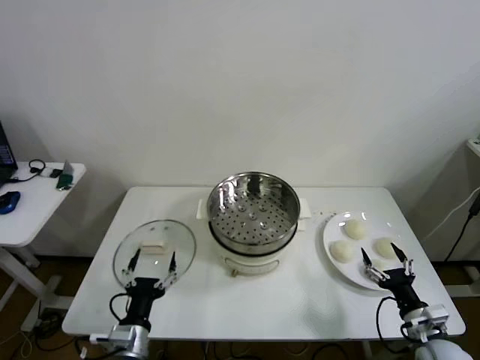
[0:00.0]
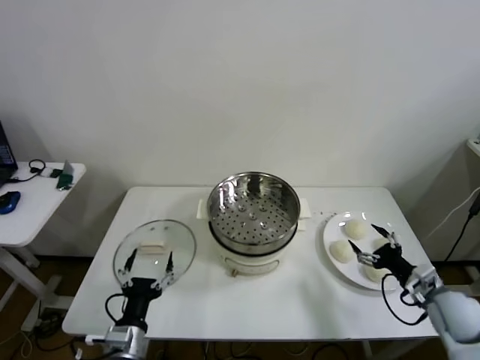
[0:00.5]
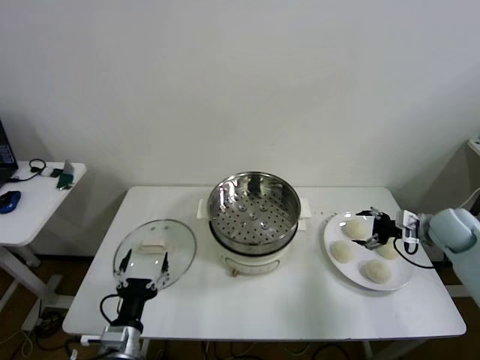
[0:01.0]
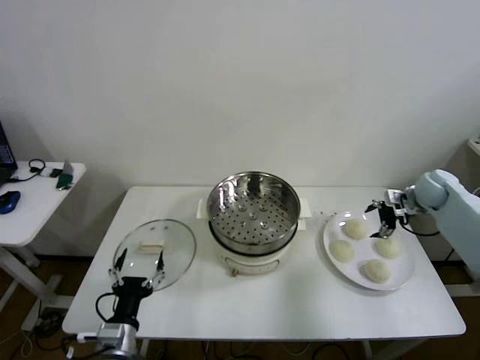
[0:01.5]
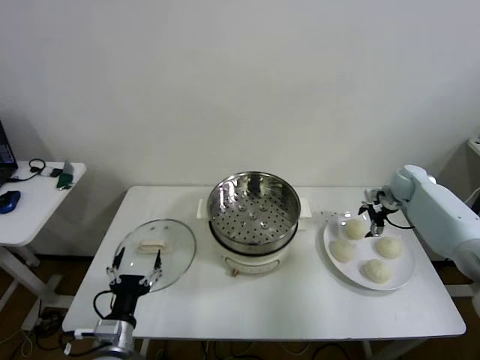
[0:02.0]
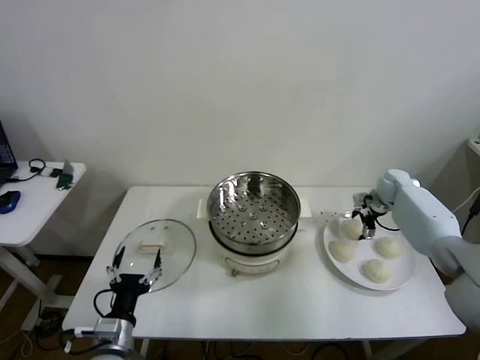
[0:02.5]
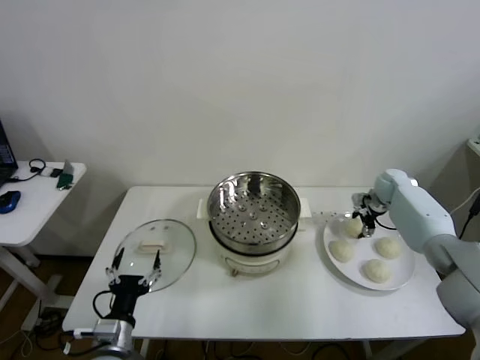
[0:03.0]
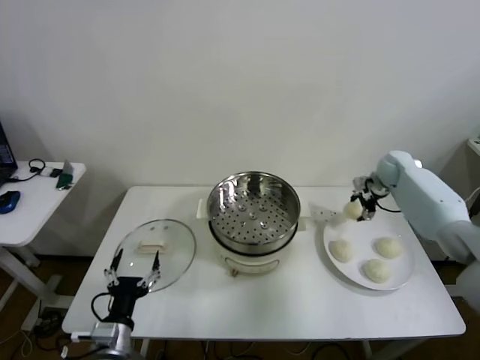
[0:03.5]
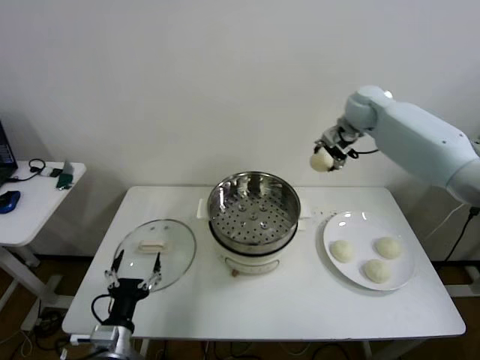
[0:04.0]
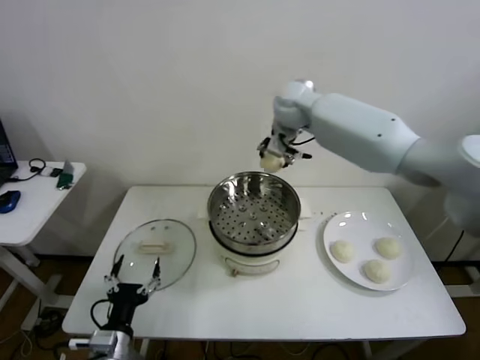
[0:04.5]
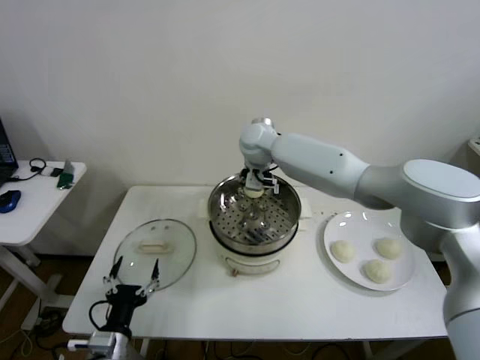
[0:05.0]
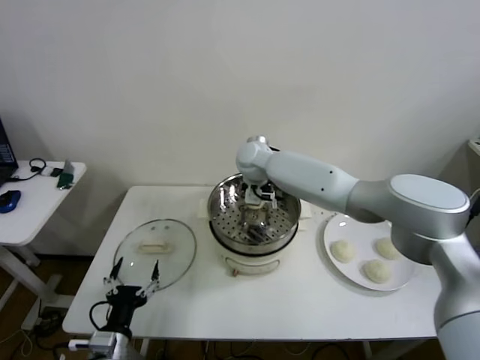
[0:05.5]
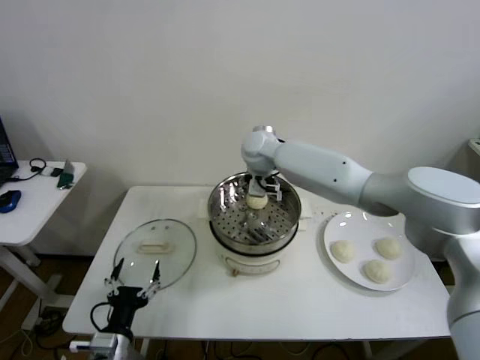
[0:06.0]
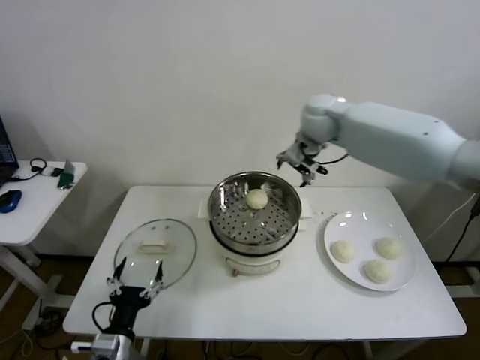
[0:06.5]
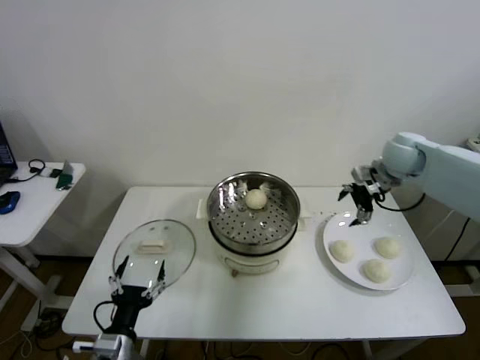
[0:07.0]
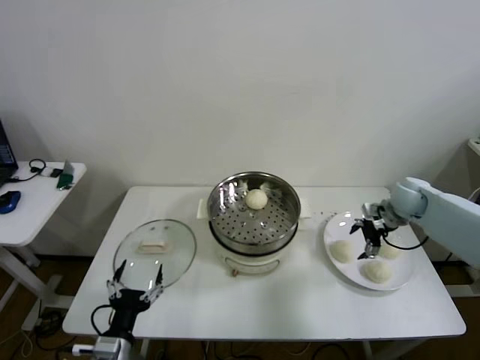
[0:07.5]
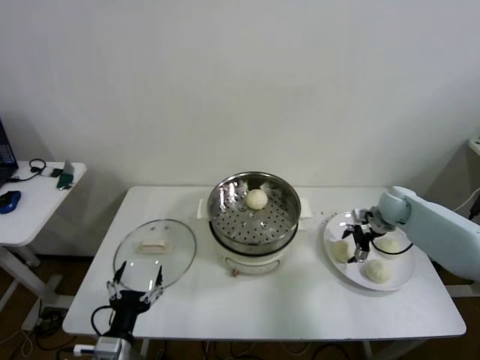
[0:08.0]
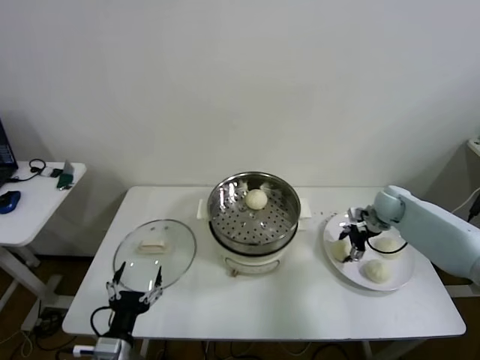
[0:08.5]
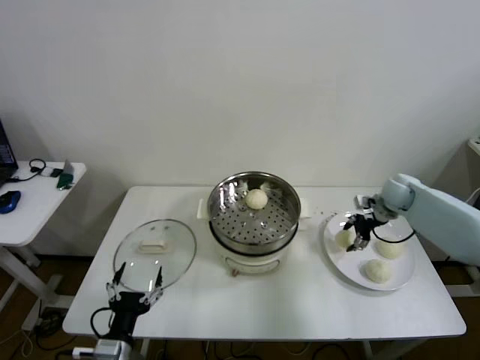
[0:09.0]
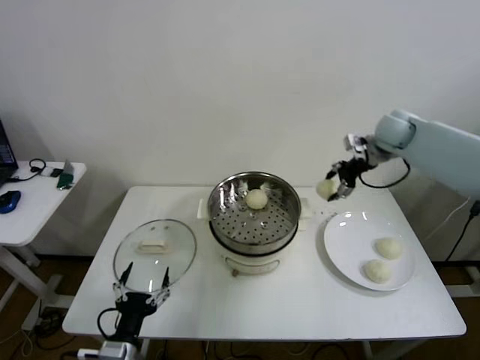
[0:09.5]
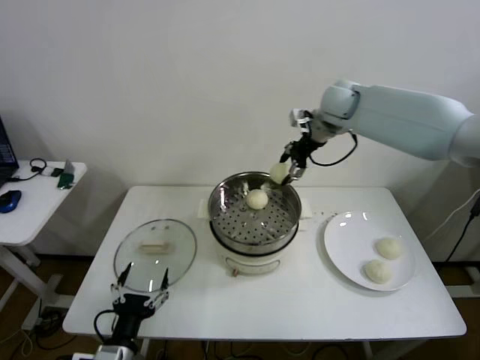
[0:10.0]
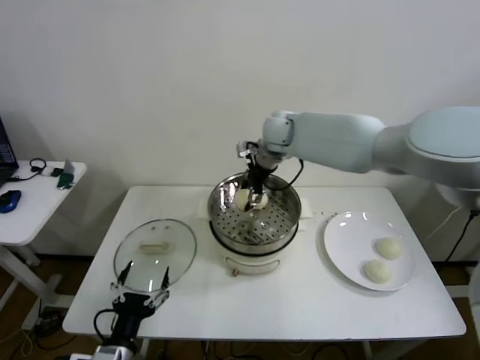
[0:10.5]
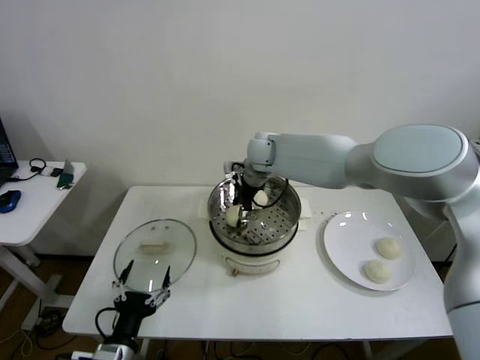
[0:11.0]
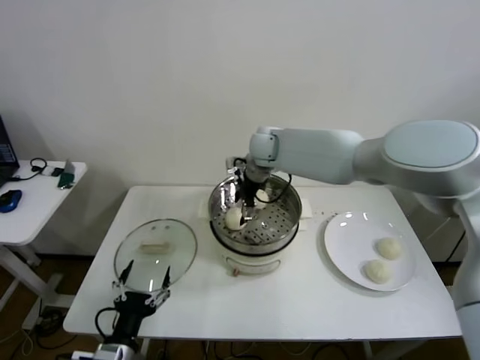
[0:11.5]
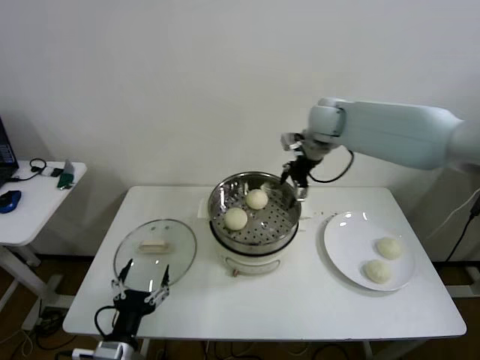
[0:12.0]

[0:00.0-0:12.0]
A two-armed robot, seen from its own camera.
Step, 0:00.0 to 0:03.0: Grasp the baozi in the plate with right gripper.
Step, 0:03.5 to 0:05.5: Place the baozi on the steamer with right gripper.
Step, 0:06.0 to 0:08.5: Grasp the baozi in the plate with right gripper.
Step, 0:09.0 to 0:11.0: Place the baozi on the steamer with right gripper.
0:02.0 to 0:04.0: The right gripper shifts approximately 30 cm upward and to the left, and closes up.
0:04.0 to 0:06.0: The right gripper heads to the left and downward, covering roughly 20 cm, and opens its fingers.
0:06.0 to 0:08.0: The right gripper heads to the right and downward, covering some 40 cm.
0:08.0 to 0:10.0: The right gripper moves upward and to the left, some 35 cm, and closes up.
0:10.0 to 0:12.0: The right gripper moves roughly 15 cm to the left and comes back, and opens its fingers.

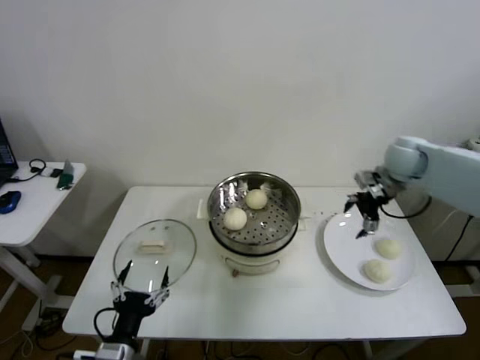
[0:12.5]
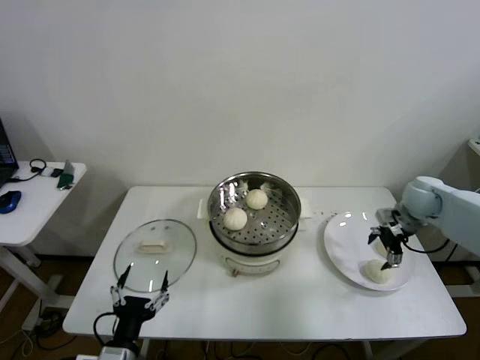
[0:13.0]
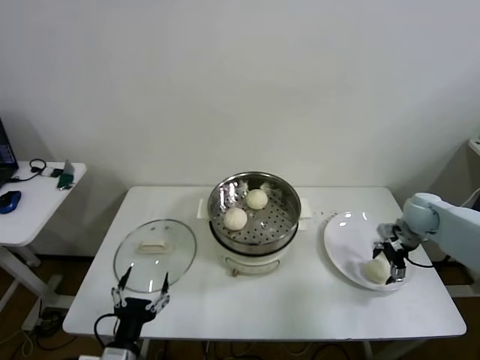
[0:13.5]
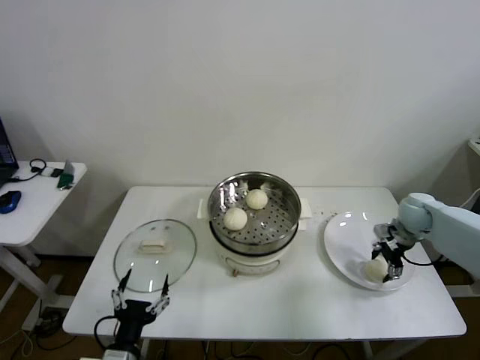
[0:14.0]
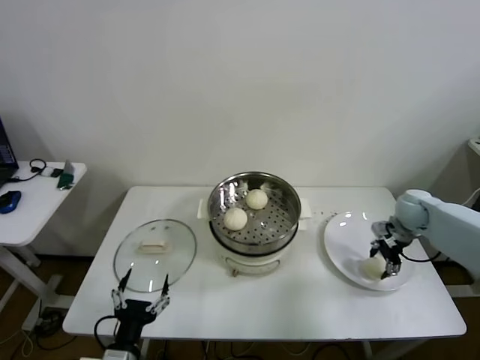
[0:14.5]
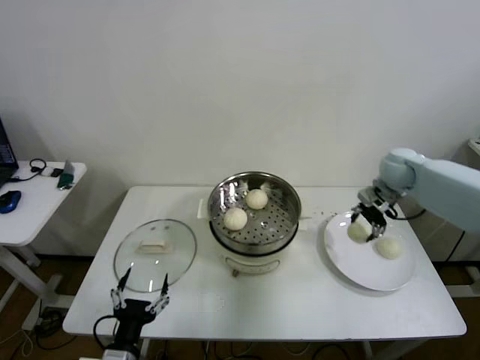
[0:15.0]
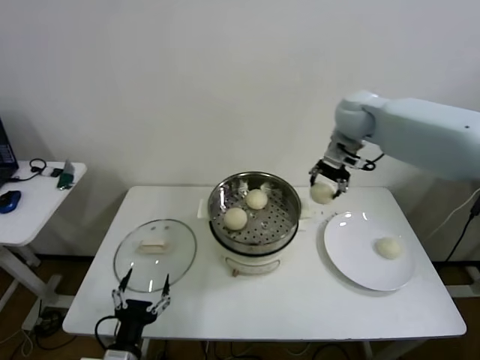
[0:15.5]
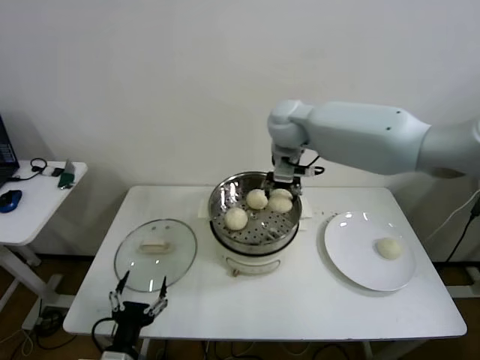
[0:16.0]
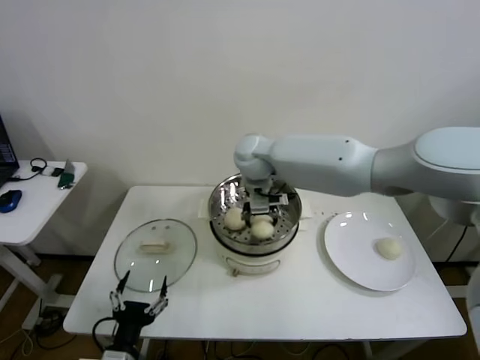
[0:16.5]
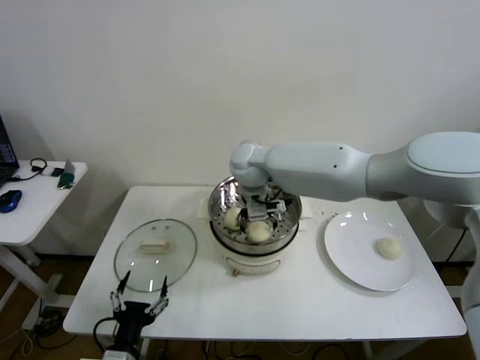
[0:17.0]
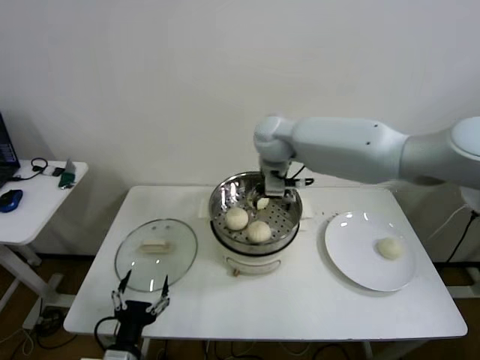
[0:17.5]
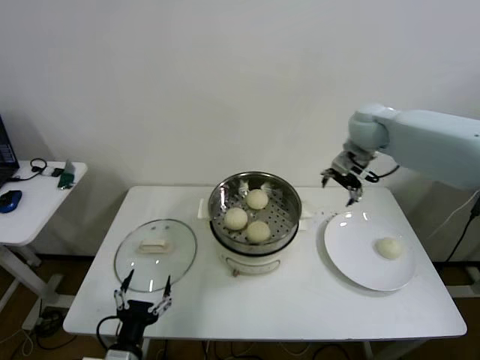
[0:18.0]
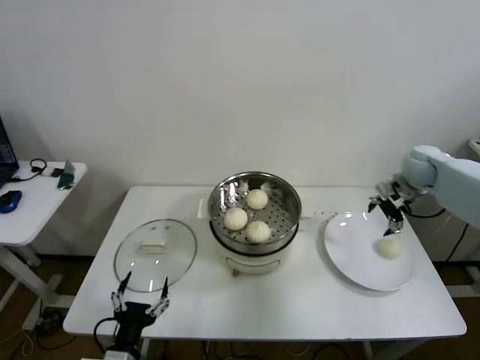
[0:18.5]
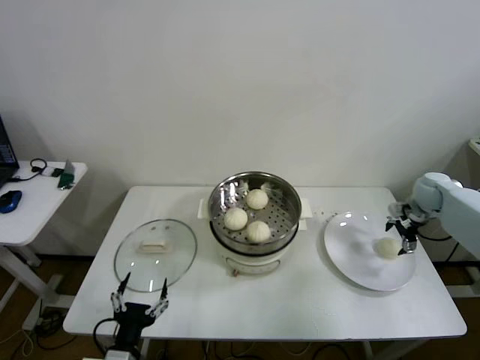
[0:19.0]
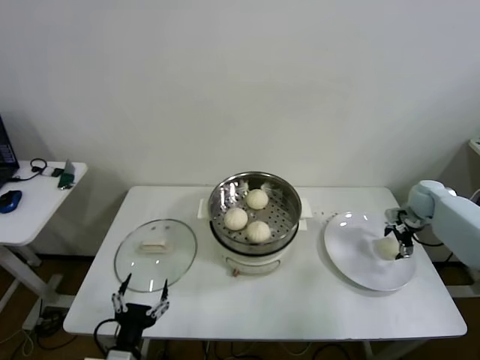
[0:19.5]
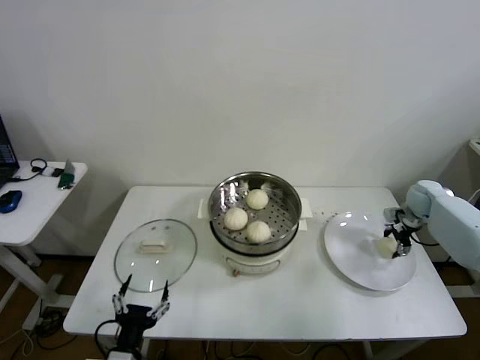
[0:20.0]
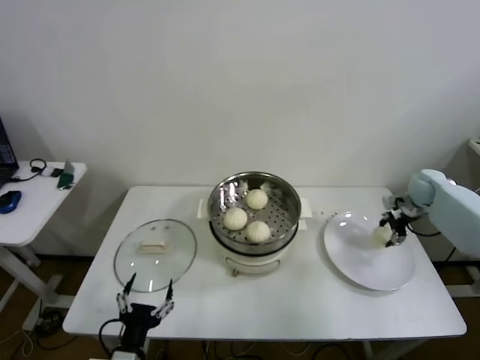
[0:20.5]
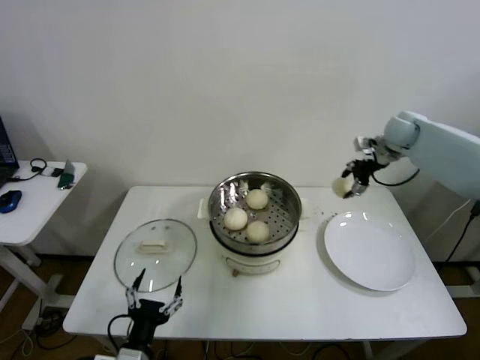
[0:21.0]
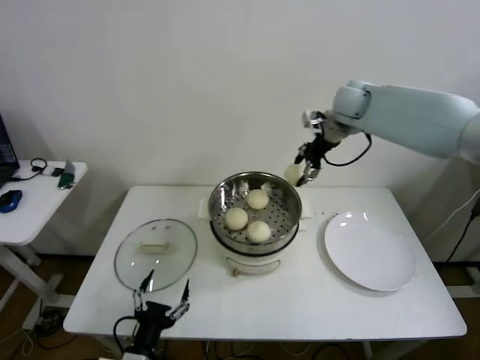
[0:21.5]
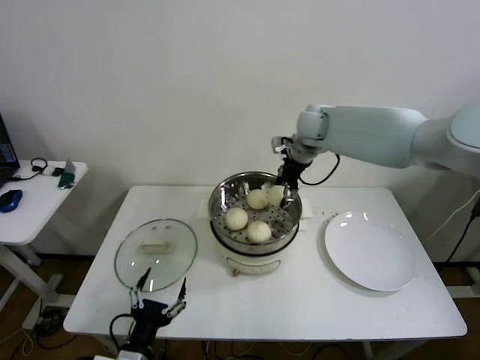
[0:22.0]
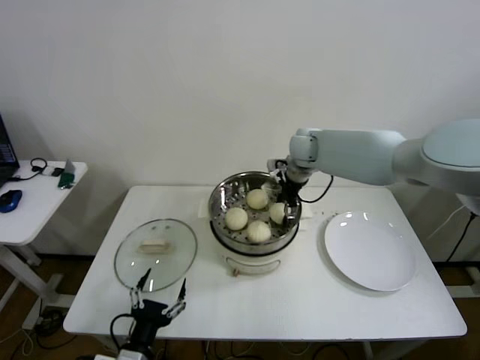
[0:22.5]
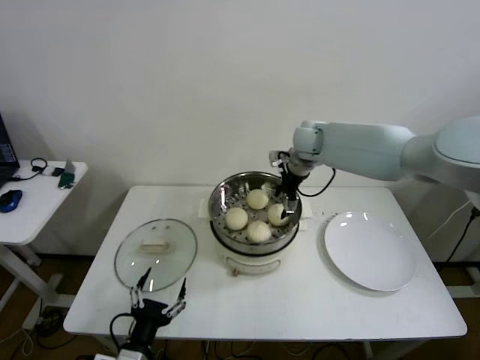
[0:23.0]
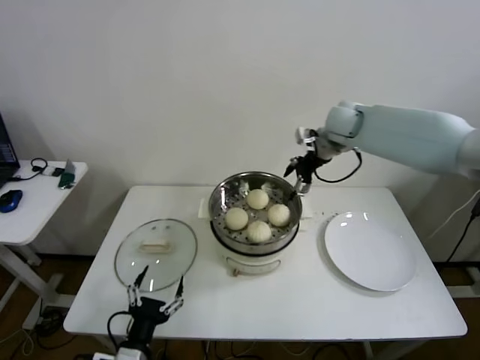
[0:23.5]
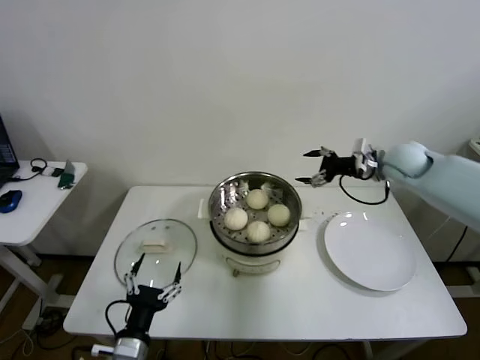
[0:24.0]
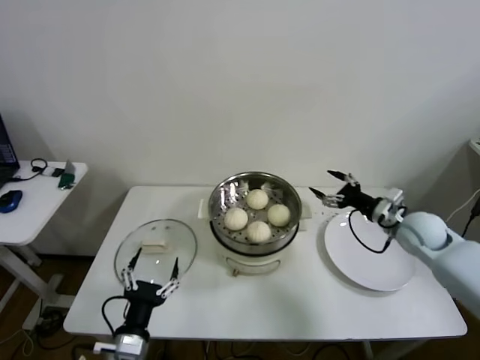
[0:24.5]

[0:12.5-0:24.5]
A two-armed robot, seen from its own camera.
Step, 0:12.5 to 0:14.0: Grasp the baozi in the plate with right gripper.
Step, 0:14.5 to 0:17.0: Place the baozi on the steamer with right gripper.
Step, 0:17.5 to 0:20.0: Grasp the baozi in the plate with right gripper.
Step, 0:20.5 to 0:22.5: Place the baozi on the steamer with right gripper.
0:12.5 to 0:14.5: The right gripper heads downward and to the right, covering approximately 15 cm, and closes.
0:14.5 to 0:16.5: The right gripper shifts about 40 cm to the left.
0:16.5 to 0:18.5: The right gripper moves to the right, some 40 cm, and opens.
0:18.5 to 0:20.5: The right gripper travels downward and to the right by some 10 cm, and closes.
0:20.5 to 0:22.5: The right gripper is displaced to the left by about 35 cm, and opens.
0:22.5 to 0:24.5: The right gripper goes roughly 30 cm to the right, backward and downward, and opens.

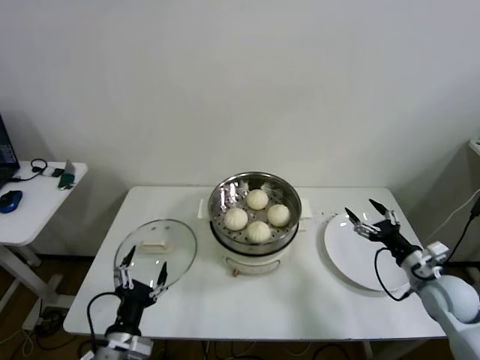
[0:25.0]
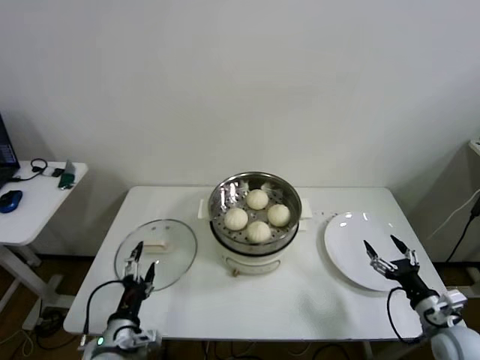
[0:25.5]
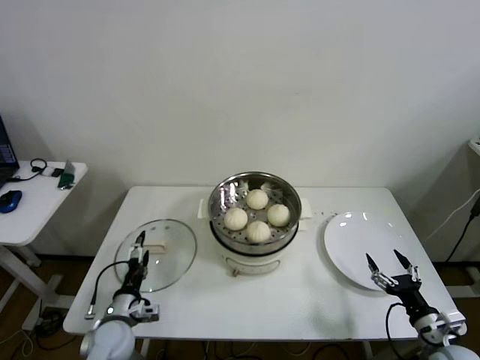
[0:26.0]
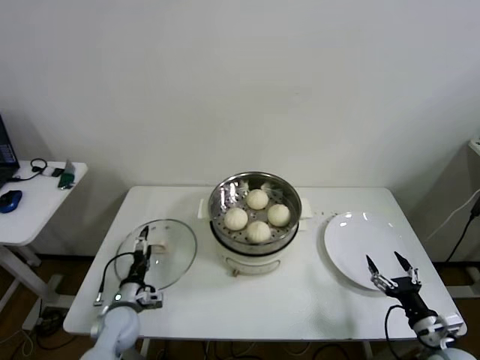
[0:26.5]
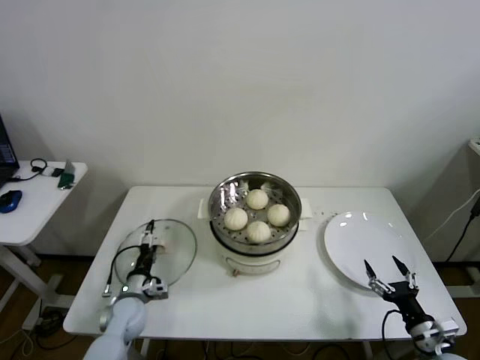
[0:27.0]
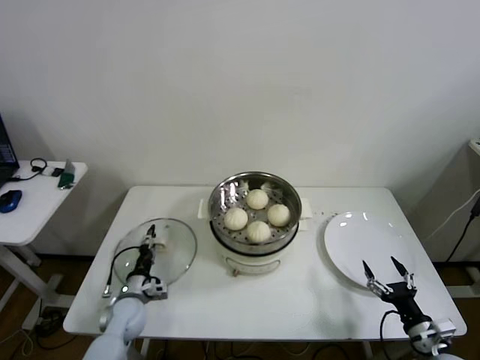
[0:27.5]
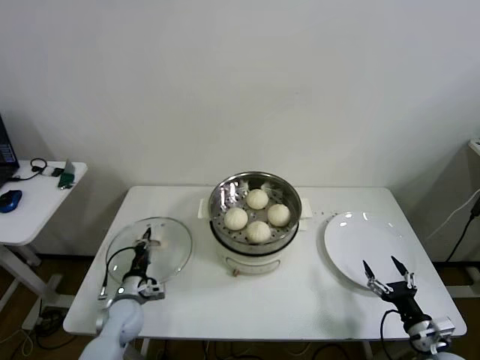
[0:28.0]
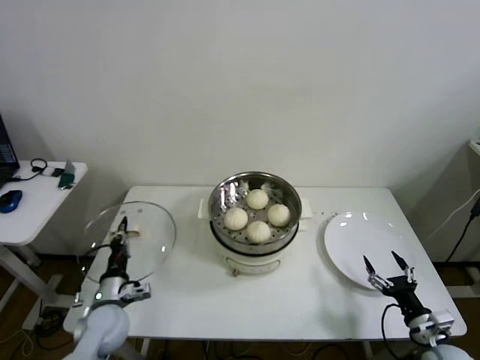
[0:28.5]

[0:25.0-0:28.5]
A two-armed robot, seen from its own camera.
Step, 0:25.0 to 0:27.5: Grasp the pot lid with left gripper.
0:25.0 to 0:27.0: The left gripper is displaced forward and downward by roughly 20 cm, while the right gripper moves backward and downward, about 15 cm.
0:27.0 to 0:28.5: The left gripper heads upward, covering about 5 cm, and closes its fingers.
